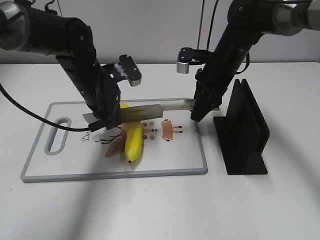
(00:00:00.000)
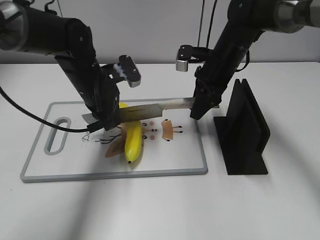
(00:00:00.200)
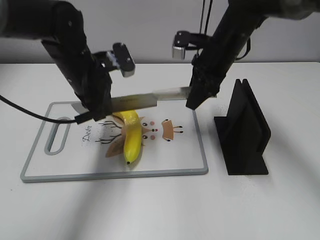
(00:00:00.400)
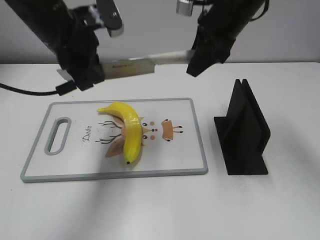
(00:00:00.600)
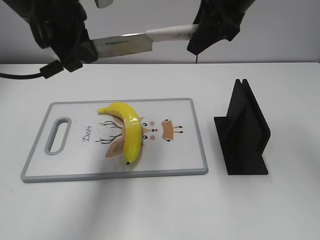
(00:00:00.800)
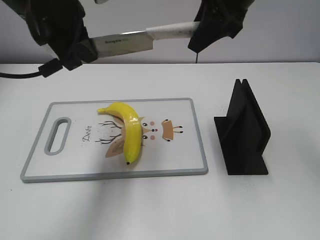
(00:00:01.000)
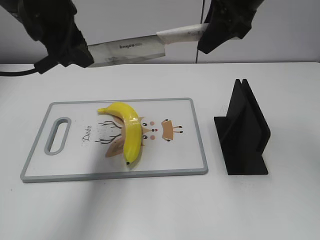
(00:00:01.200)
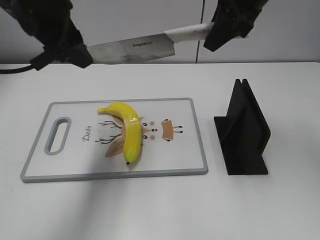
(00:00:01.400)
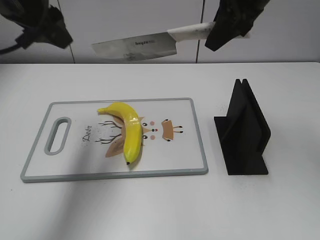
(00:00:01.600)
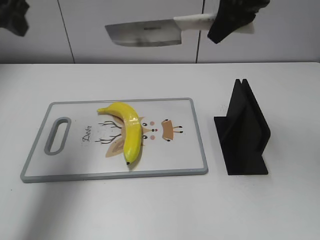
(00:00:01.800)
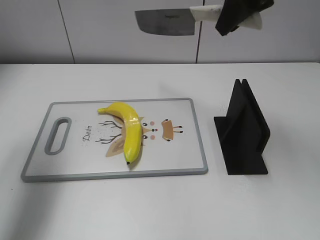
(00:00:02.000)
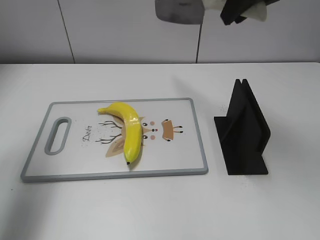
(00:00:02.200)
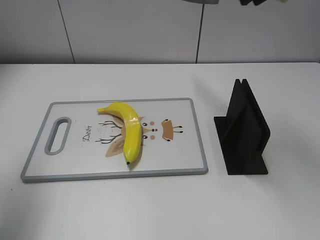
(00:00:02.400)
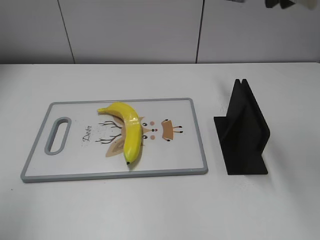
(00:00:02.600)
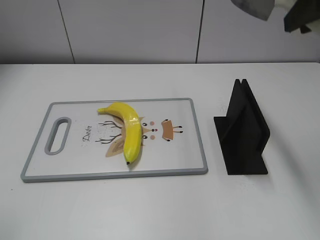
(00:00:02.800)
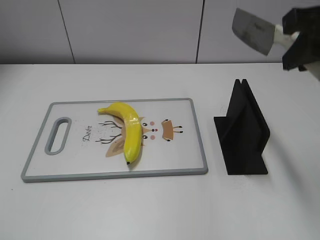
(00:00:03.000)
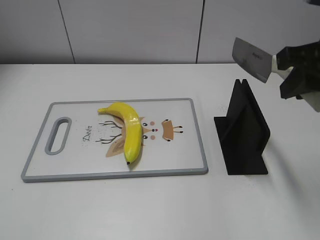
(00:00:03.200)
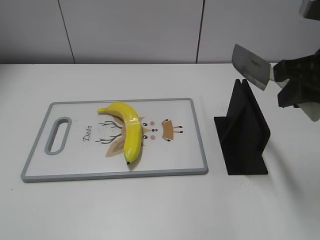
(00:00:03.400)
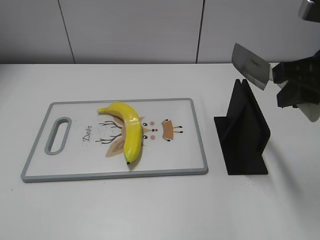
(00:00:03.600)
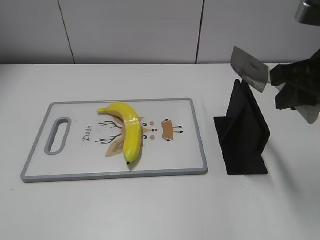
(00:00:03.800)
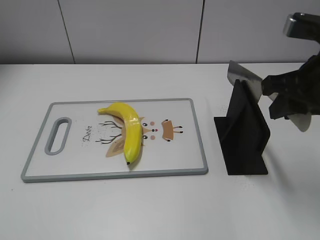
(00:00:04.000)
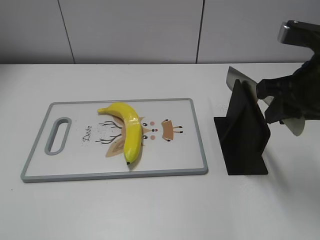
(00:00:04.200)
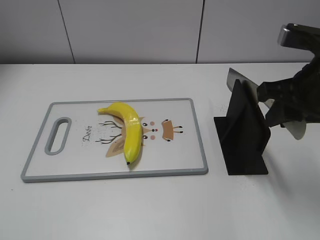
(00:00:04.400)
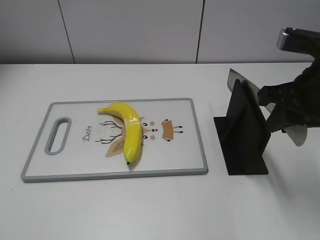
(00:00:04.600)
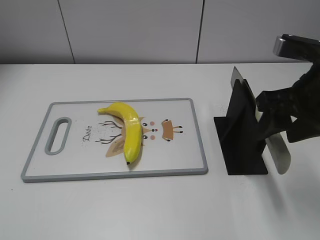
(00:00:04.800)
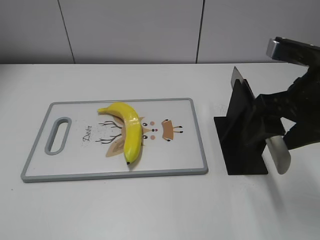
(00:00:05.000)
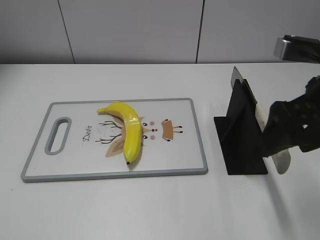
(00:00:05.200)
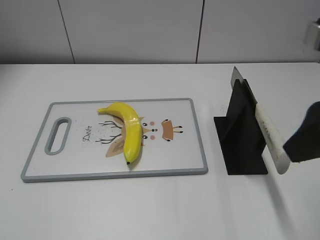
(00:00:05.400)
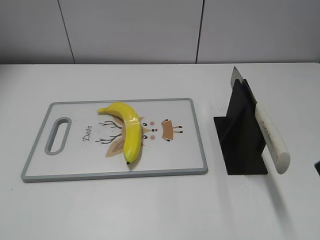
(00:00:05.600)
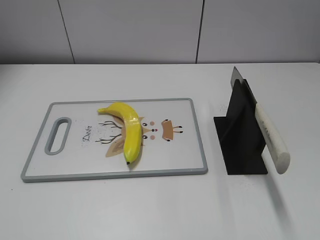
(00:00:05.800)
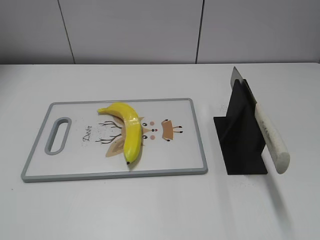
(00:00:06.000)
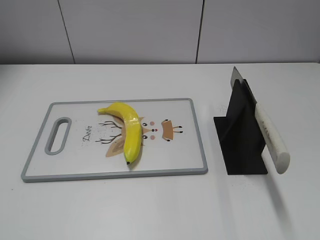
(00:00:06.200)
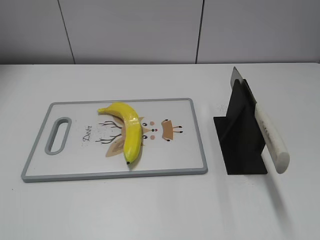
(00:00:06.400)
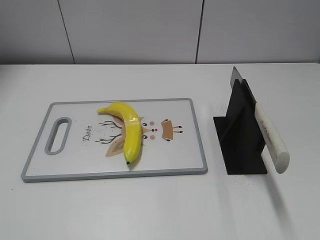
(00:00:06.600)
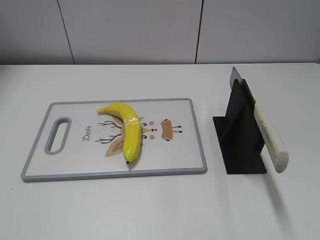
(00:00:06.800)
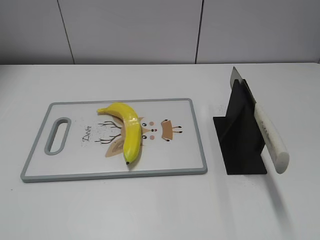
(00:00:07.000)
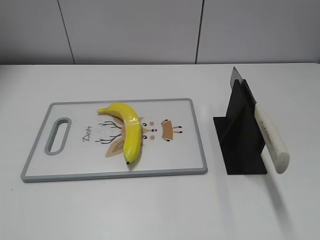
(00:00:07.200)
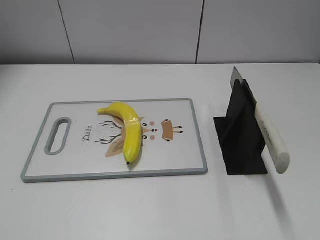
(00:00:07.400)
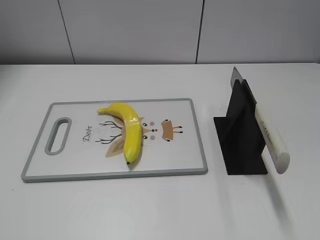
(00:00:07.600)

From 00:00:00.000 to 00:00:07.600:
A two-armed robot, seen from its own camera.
Task of the whole recording: cut plastic banana.
Step, from 00:00:01.400 to 00:00:02.400: Cut the banana with your right hand.
Step, from 00:00:02.600 to 00:00:03.800: Lift the knife with your right hand.
Step, from 00:00:04.000 to 00:00:07.600: Place the knife on the storage rack with your right hand.
From 00:00:00.000 to 00:00:01.600: The two grippers go some 20 cm upward. The left gripper opens up.
From 00:00:01.600 to 00:00:03.000: The right gripper is displaced backward and to the right by approximately 15 cm; the left gripper travels backward and to the left by some 30 cm.
From 00:00:03.000 to 00:00:04.600: The right gripper goes roughly 10 cm downward.
From 00:00:04.600 to 00:00:06.000: The right gripper travels backward by some 20 cm, and opens up.
